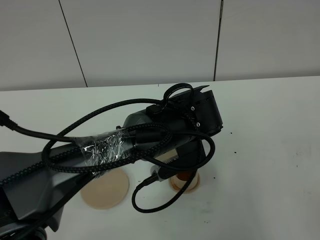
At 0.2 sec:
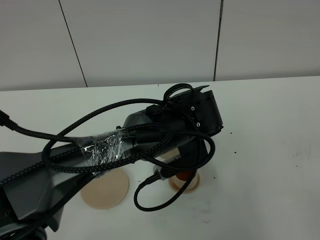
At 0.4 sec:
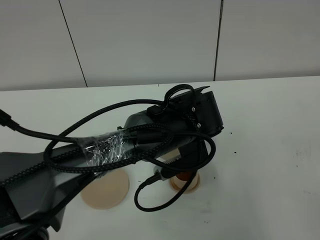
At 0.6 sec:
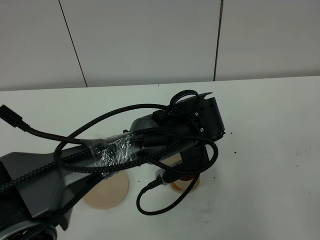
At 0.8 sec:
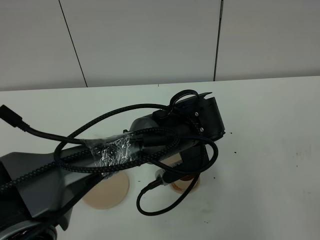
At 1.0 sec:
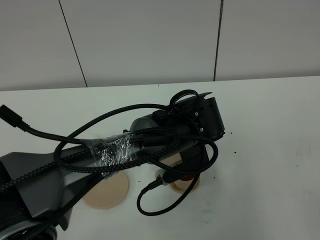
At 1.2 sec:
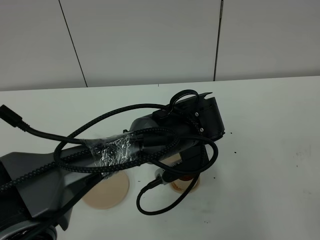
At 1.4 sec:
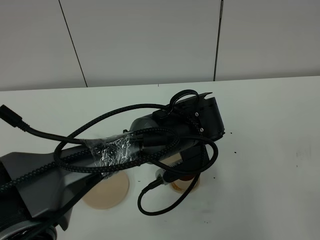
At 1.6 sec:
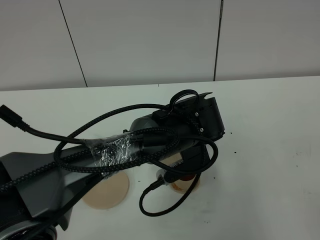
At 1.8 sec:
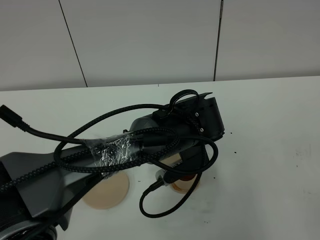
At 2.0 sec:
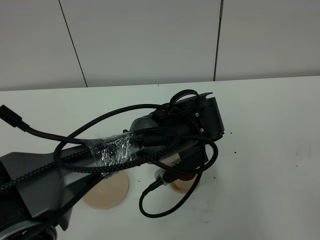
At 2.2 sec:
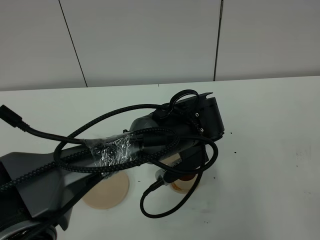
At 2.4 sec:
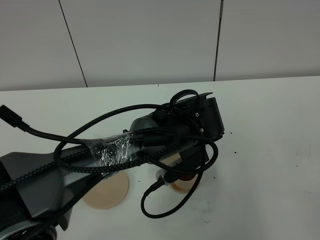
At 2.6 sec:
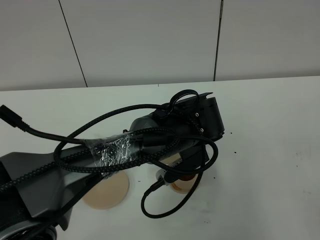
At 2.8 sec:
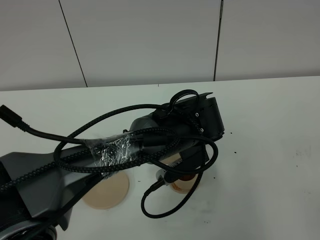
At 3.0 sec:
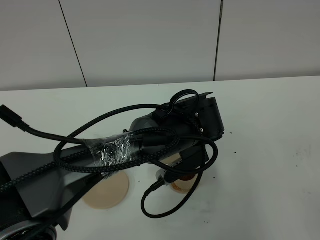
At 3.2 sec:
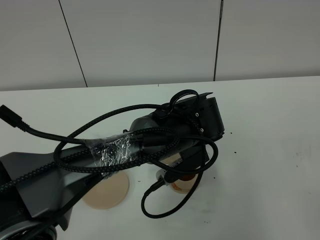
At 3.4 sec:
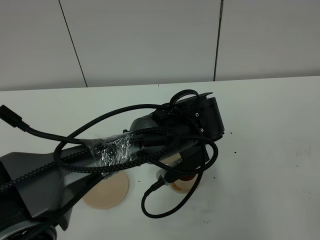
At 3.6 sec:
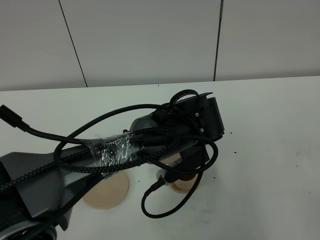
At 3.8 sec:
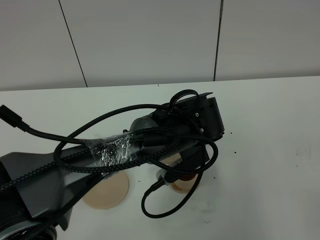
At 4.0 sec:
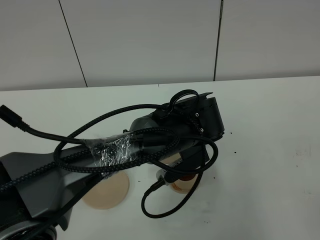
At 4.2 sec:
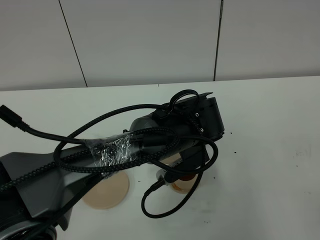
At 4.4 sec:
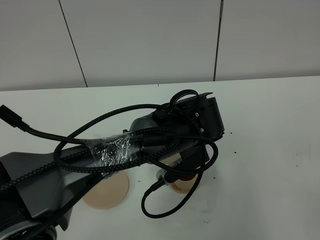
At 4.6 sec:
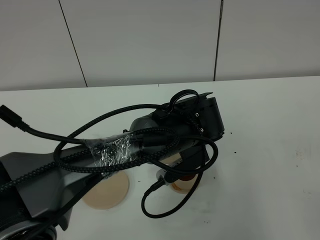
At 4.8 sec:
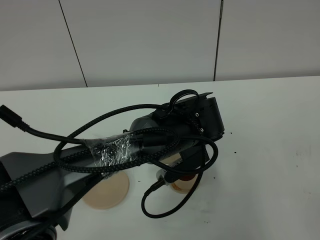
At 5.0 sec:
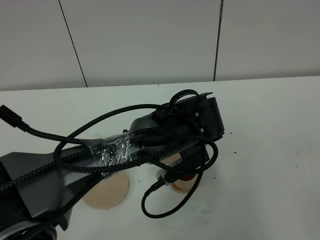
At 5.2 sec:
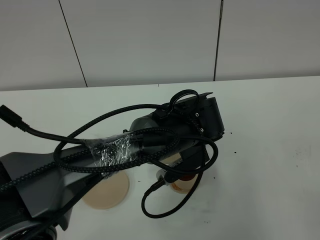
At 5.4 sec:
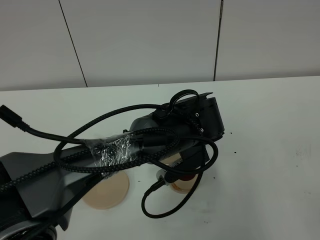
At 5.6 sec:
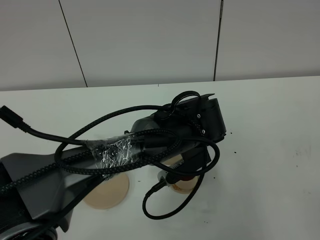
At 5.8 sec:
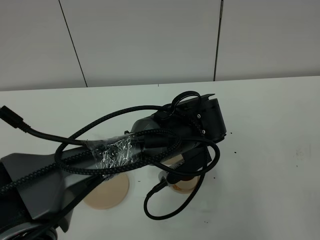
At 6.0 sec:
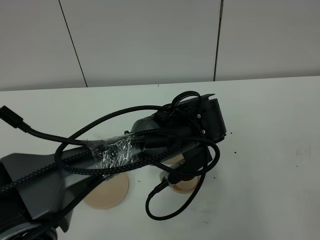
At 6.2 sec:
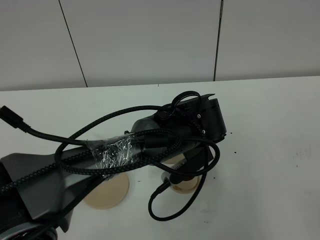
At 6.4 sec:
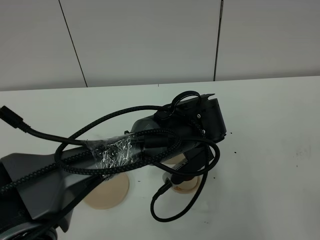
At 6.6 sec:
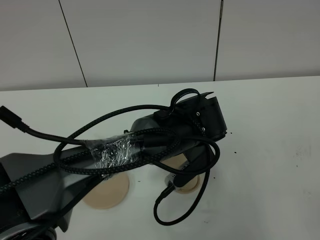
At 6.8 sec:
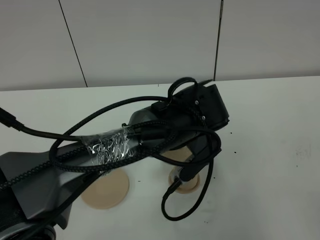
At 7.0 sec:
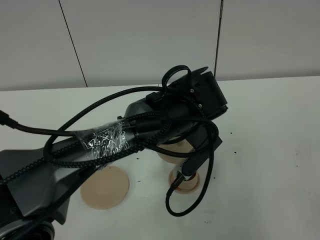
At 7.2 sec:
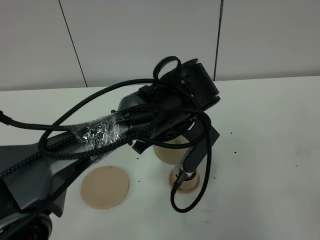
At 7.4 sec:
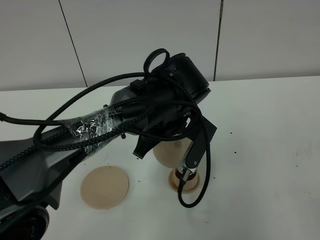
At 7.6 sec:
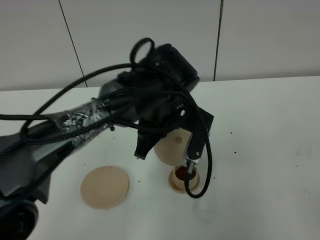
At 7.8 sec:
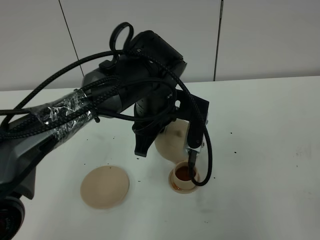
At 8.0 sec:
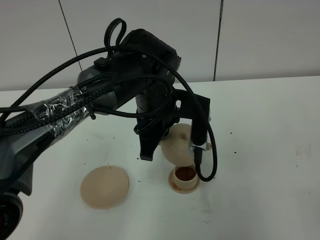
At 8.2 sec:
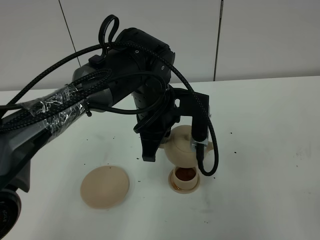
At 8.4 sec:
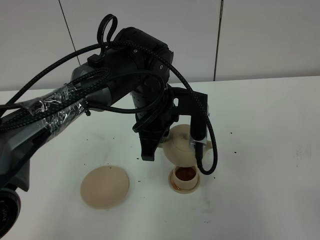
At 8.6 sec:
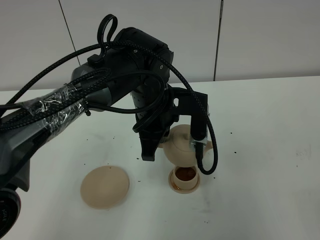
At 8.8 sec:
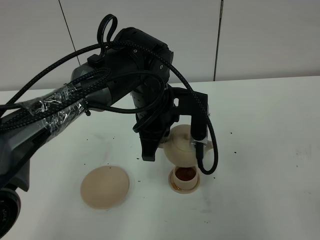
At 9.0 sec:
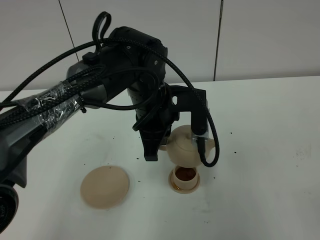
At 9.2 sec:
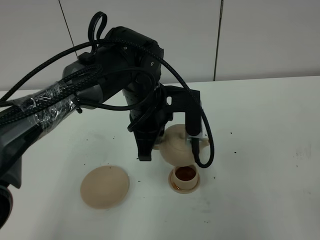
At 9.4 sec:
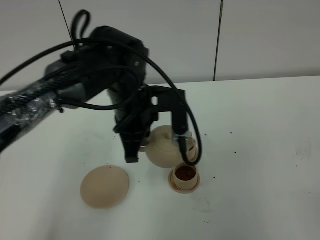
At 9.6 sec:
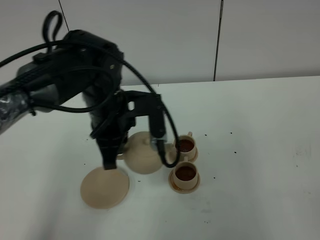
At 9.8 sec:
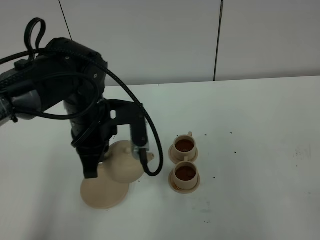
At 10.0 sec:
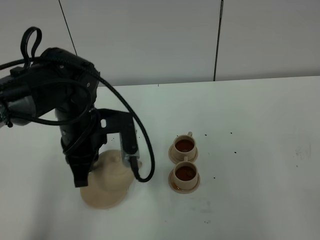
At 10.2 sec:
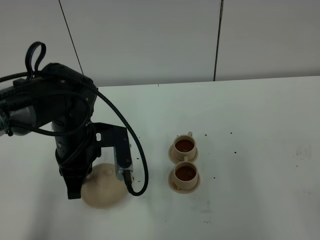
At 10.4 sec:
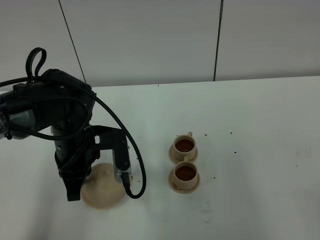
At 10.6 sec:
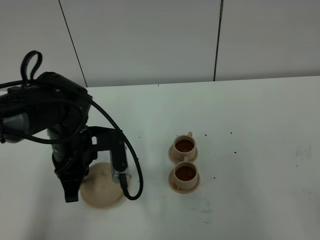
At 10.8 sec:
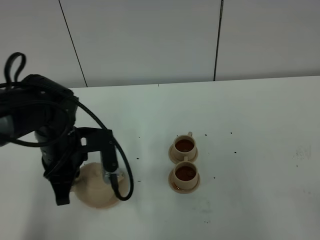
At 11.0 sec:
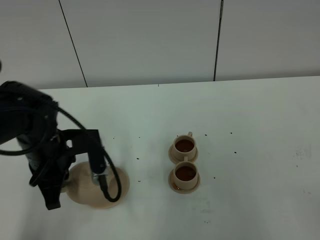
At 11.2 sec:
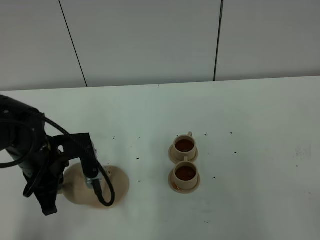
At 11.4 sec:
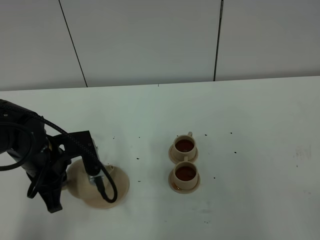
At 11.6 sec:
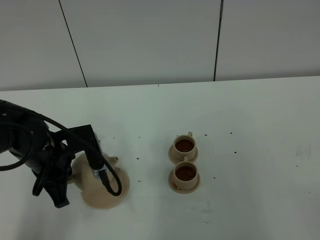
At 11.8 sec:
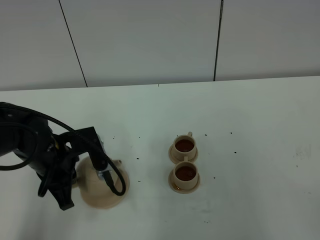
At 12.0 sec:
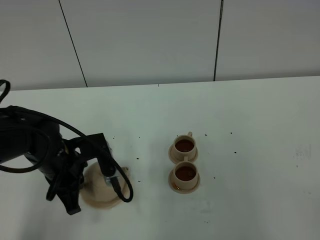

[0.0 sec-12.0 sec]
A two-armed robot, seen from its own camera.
Task of the whole recording: grasp the brown teapot and pour the tea into the two brown teacups one by one, put the brown teapot back in its original place.
Step, 0.0 sec to 8.2 sec: Pour tea into the teacup with the left gripper.
0.0 sec to 1.6 sec: There are only small adjustments of the grippers.
1.6 sec to 4.4 sec: Neither gripper changes place.
4.4 sec to 6.0 sec: Both grippers stay put.
6.0 sec to 7.6 sec: The left gripper changes place by about 5 cm.
9.0 sec to 10.4 sec: The left gripper travels to the left by about 15 cm.

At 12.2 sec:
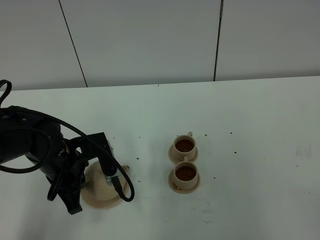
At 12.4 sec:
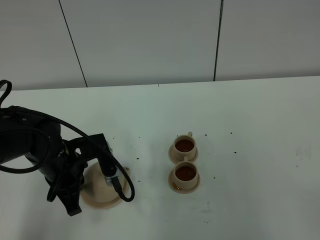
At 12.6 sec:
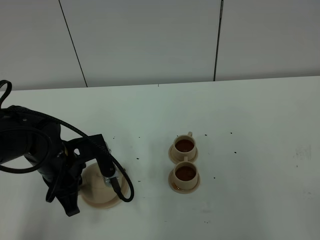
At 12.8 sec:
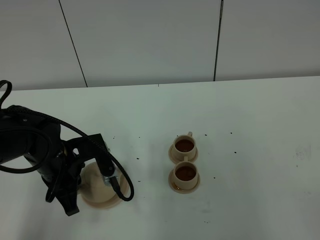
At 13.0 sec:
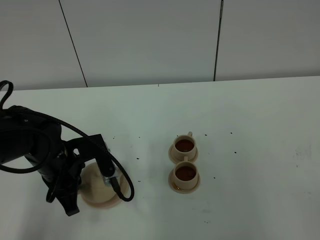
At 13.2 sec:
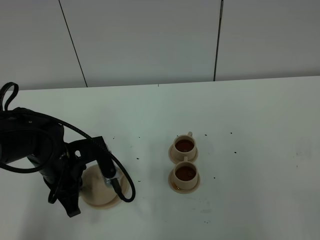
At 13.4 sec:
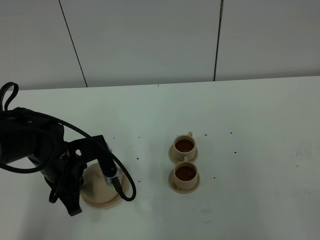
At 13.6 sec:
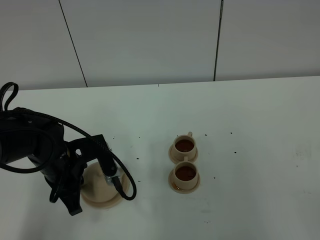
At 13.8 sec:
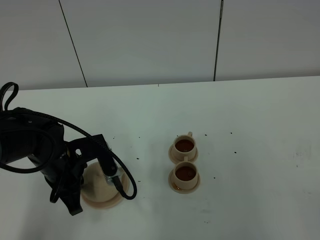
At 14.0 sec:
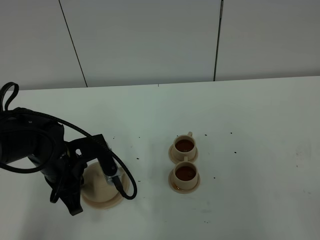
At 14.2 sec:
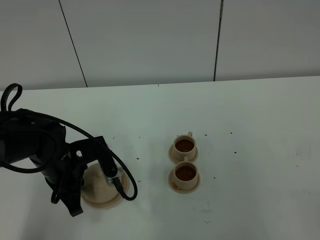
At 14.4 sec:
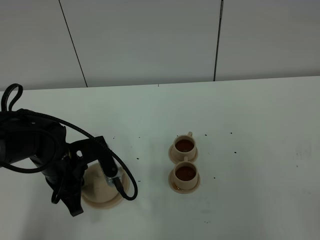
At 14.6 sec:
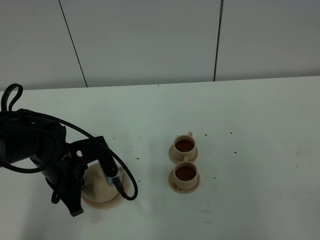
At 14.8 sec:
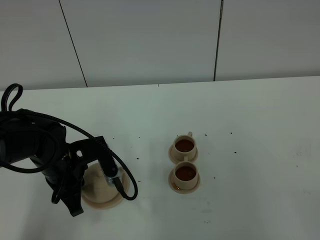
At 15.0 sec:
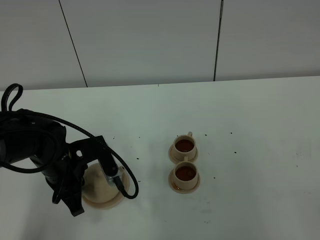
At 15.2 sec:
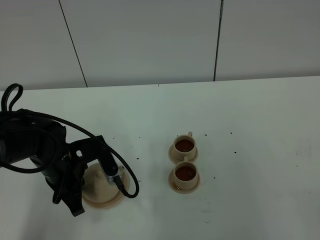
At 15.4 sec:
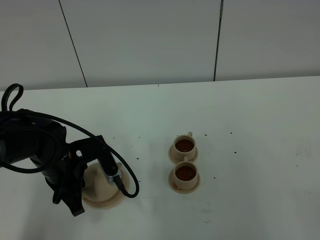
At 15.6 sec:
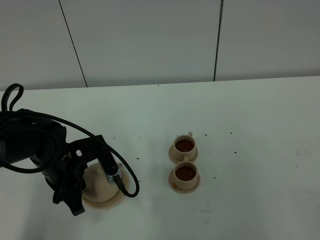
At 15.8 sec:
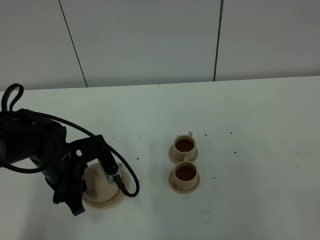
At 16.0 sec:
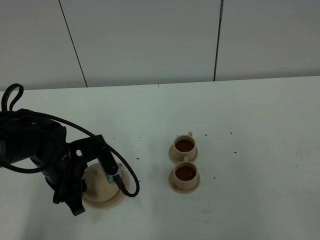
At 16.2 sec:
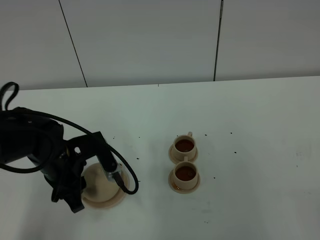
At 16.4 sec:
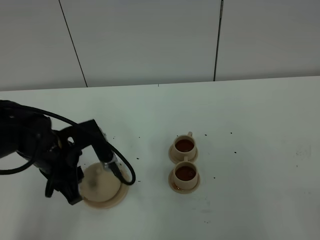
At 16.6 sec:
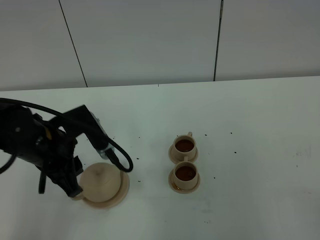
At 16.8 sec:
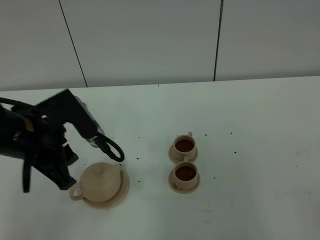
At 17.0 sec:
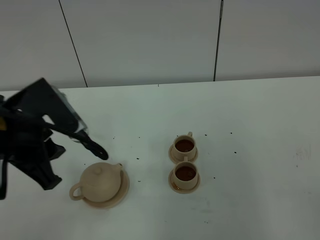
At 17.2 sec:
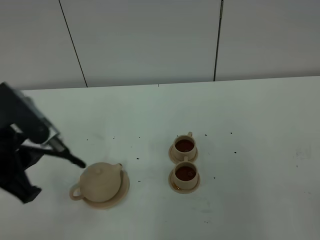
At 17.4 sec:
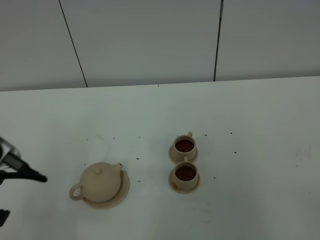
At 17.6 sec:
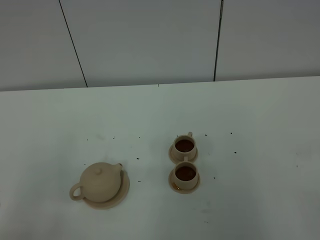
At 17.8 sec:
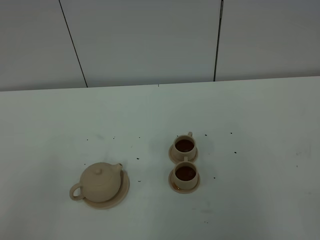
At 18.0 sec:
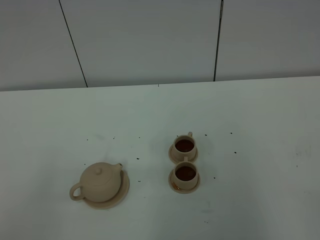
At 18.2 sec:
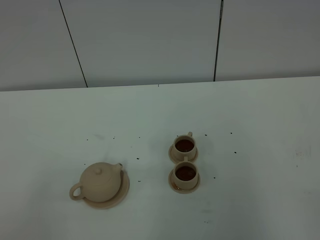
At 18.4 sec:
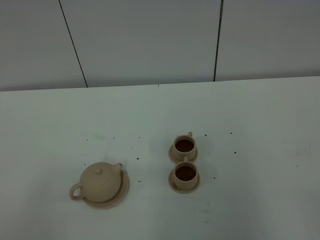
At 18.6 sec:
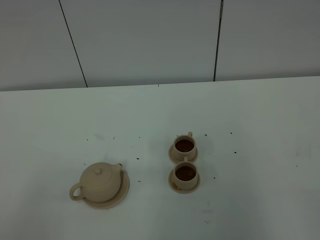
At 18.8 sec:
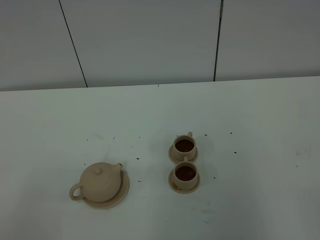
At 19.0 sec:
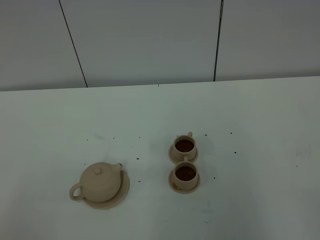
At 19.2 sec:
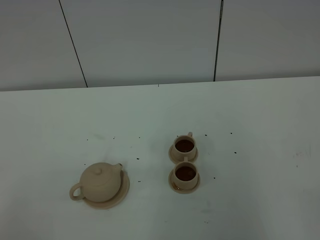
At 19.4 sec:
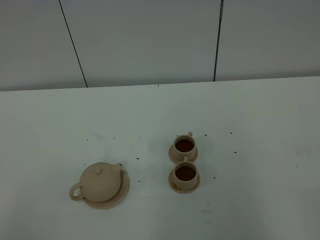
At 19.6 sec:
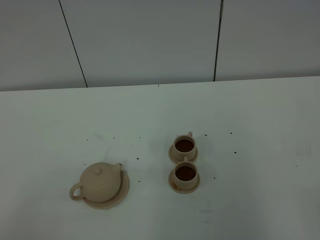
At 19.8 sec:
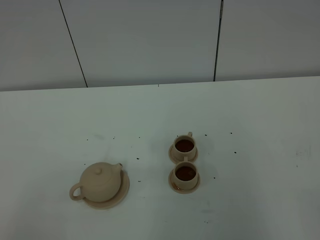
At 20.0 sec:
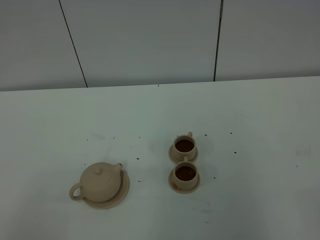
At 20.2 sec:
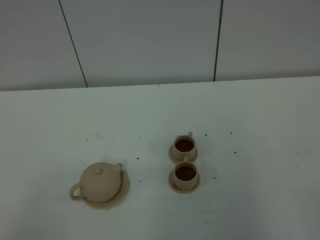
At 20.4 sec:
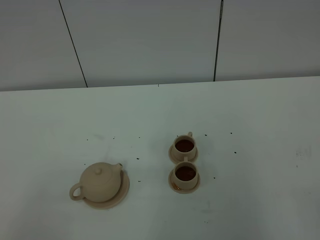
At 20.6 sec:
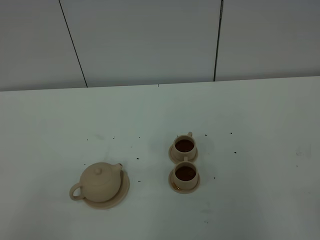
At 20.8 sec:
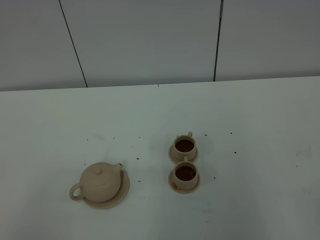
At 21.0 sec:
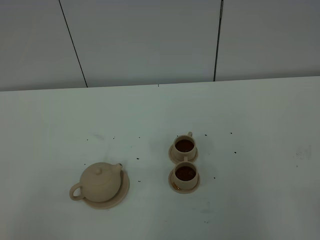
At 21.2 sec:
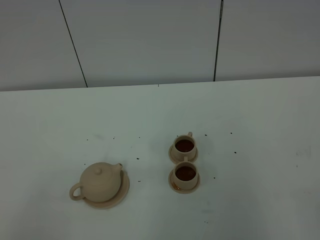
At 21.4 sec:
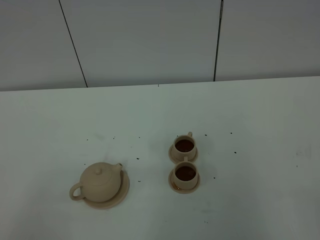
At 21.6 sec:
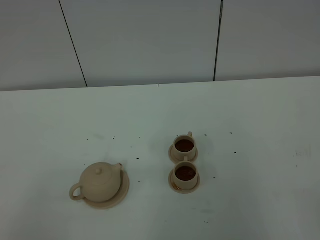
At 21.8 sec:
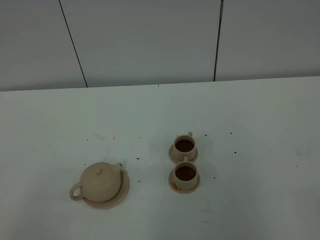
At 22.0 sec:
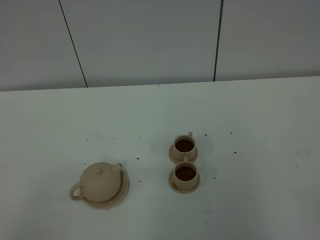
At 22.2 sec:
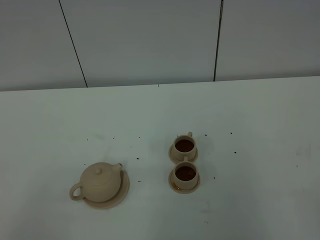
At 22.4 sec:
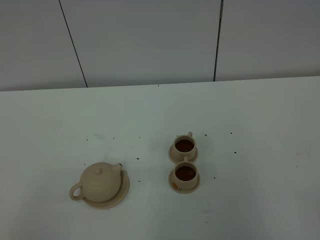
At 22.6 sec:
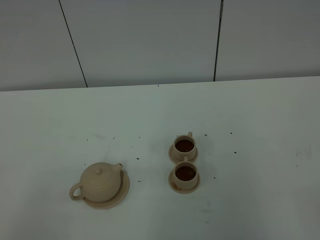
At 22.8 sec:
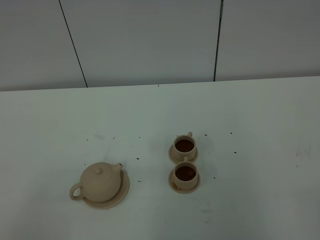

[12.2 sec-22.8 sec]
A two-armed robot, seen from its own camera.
Task of the whole recording: grasp the brown teapot and pour the tea into the two brown teacups one by one, put the brown teapot back in its original place.
12.2 sec to 13.8 sec: Neither gripper changes place.
13.8 sec to 15.2 sec: Both grippers stay about where they are.
15.2 sec to 16.8 sec: The left gripper moves upward, roughly 10 cm, and opens.
16.8 sec to 18.2 sec: The left gripper heads backward and to the left, covering approximately 25 cm.
19.8 sec to 22.8 sec: Both grippers stay put.
